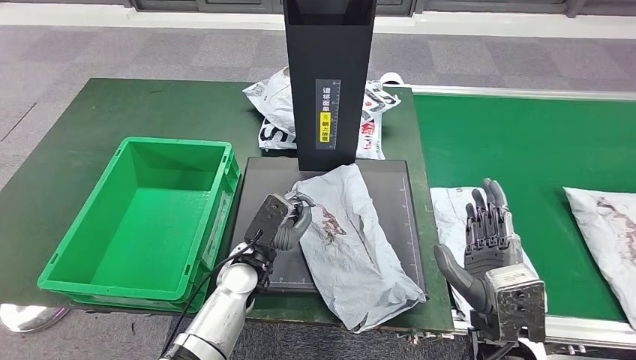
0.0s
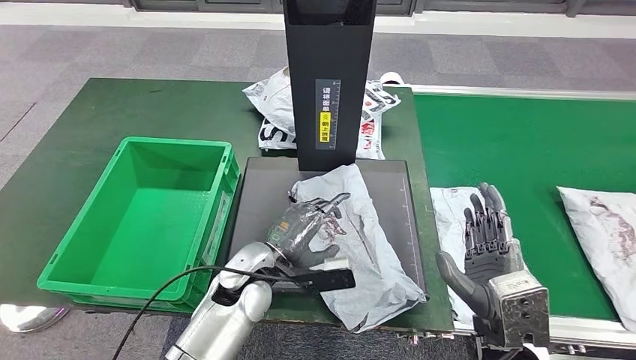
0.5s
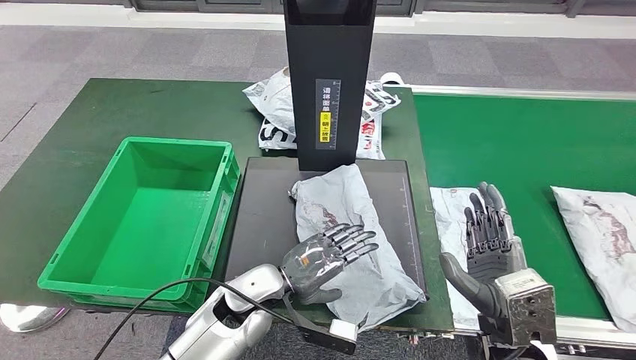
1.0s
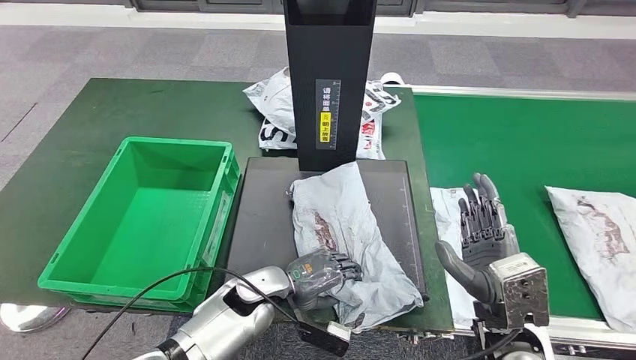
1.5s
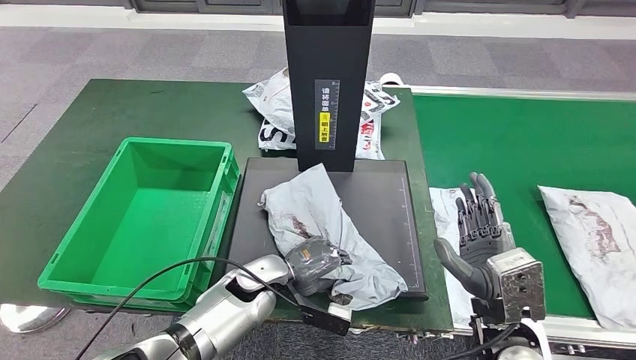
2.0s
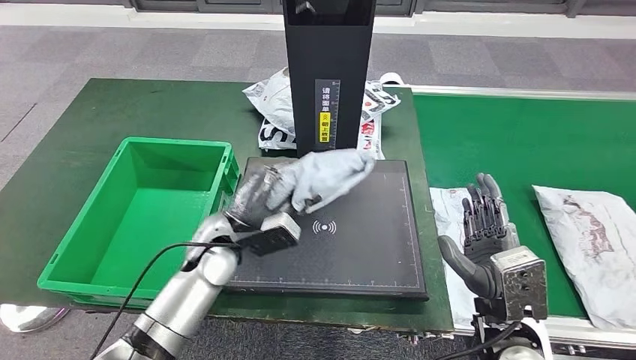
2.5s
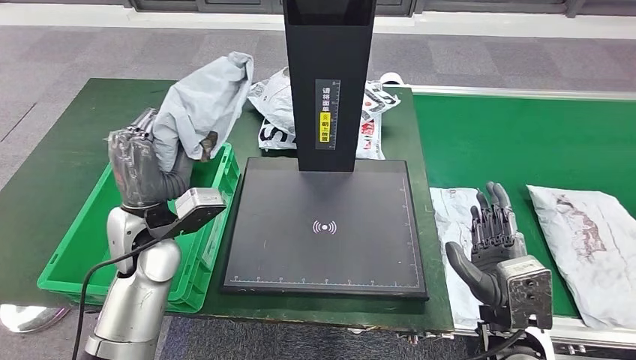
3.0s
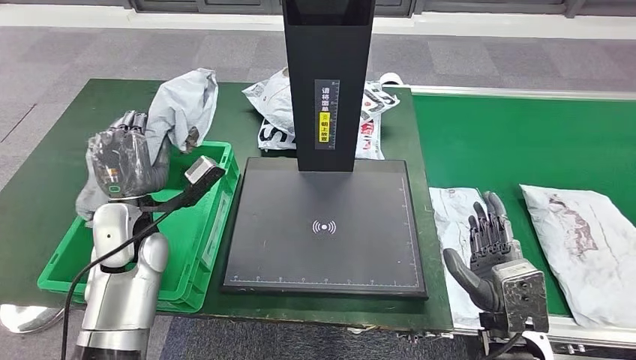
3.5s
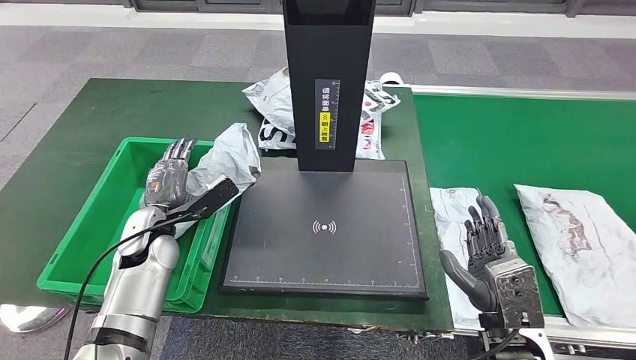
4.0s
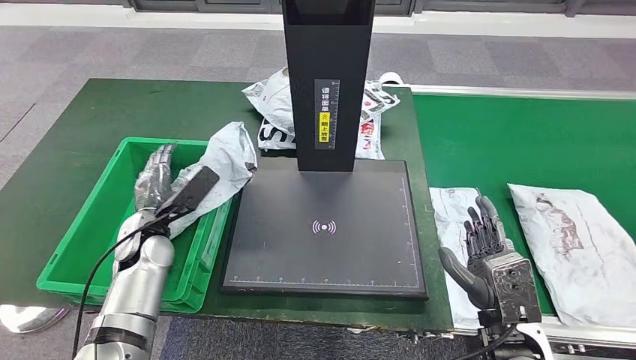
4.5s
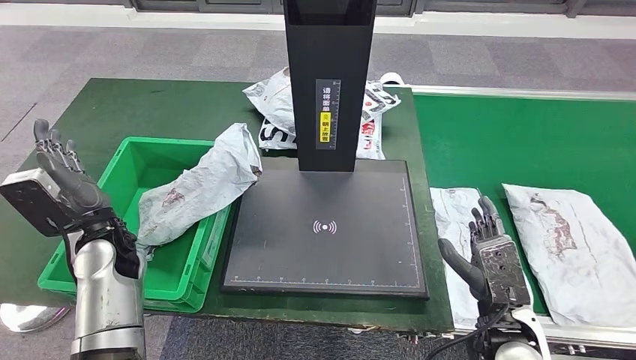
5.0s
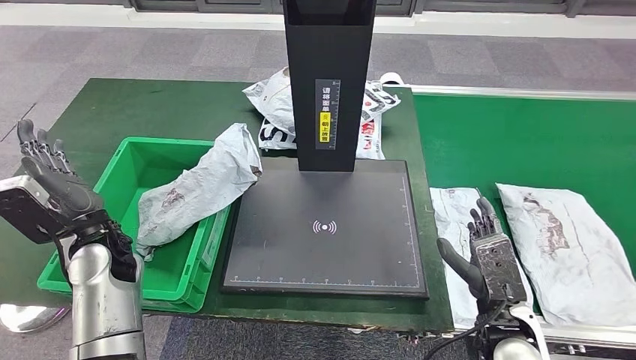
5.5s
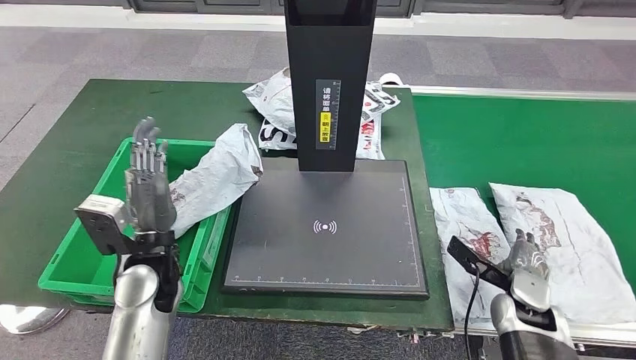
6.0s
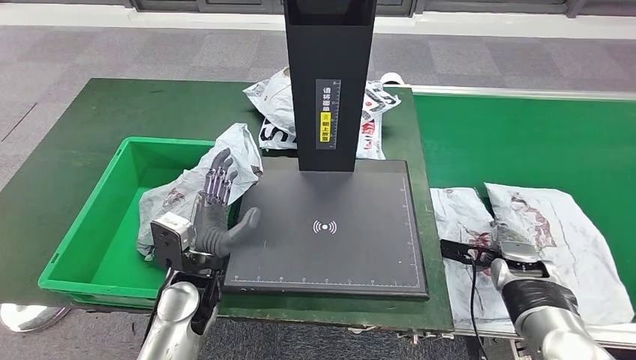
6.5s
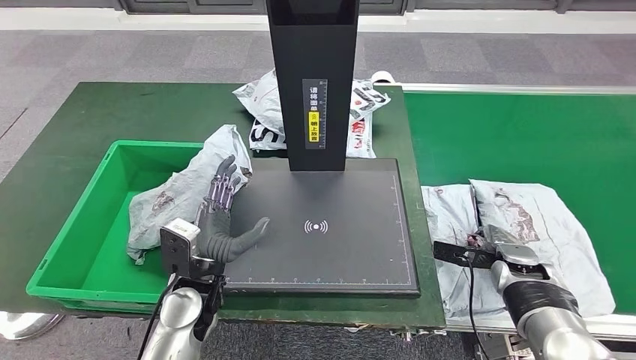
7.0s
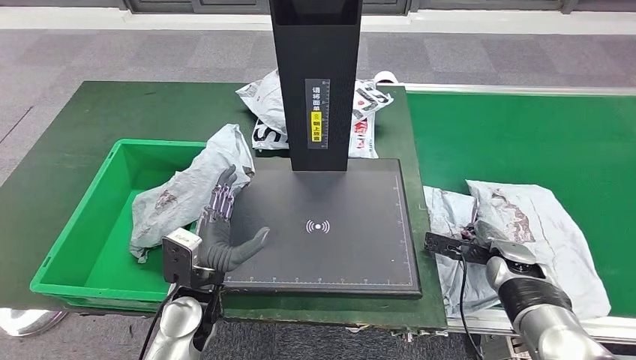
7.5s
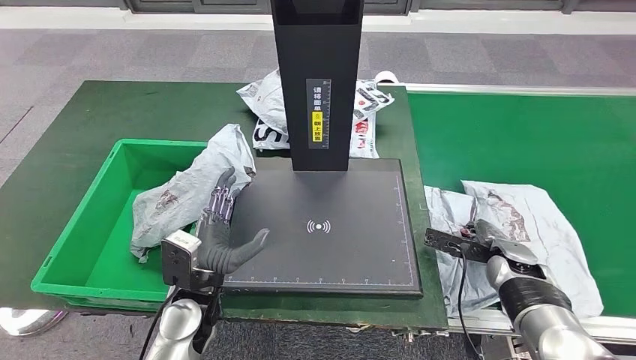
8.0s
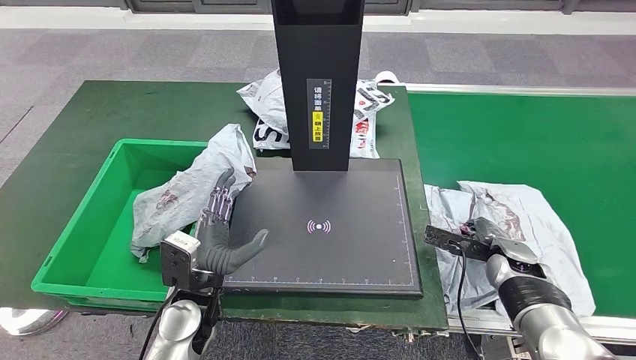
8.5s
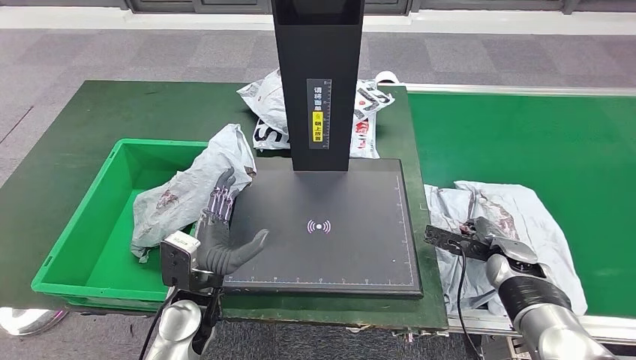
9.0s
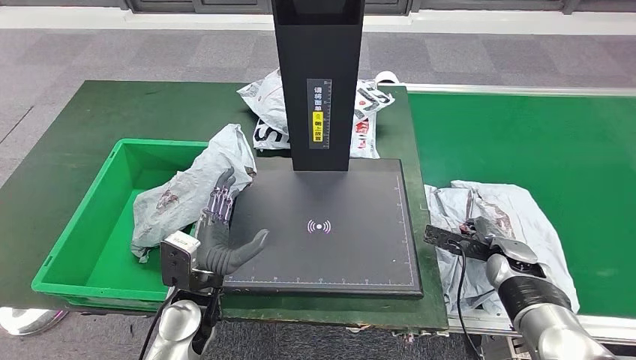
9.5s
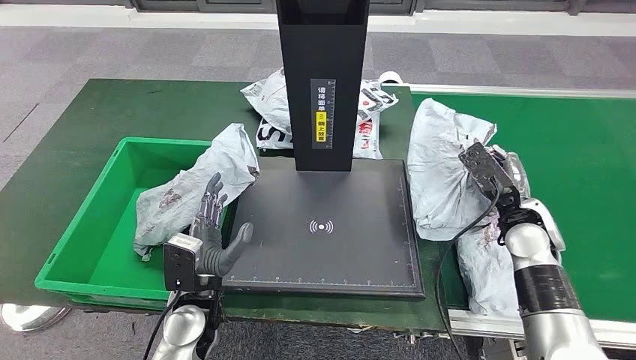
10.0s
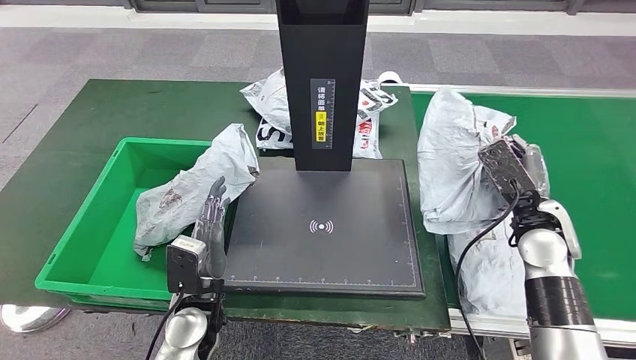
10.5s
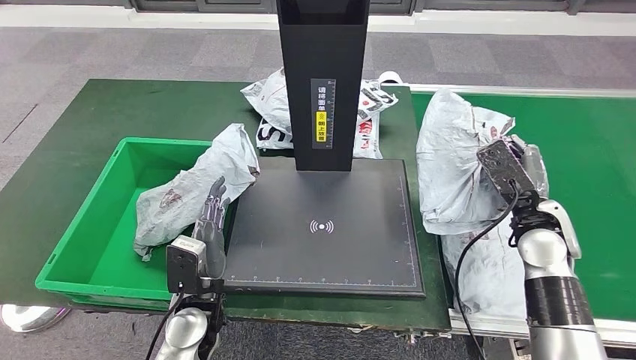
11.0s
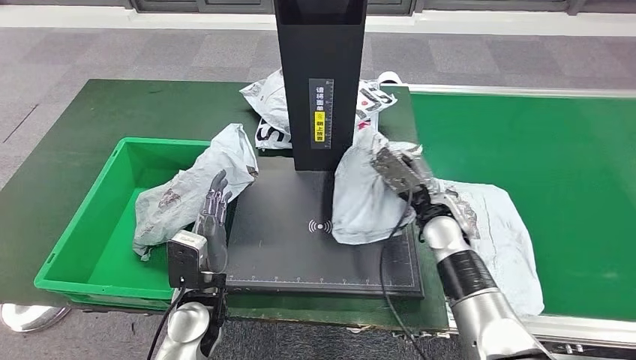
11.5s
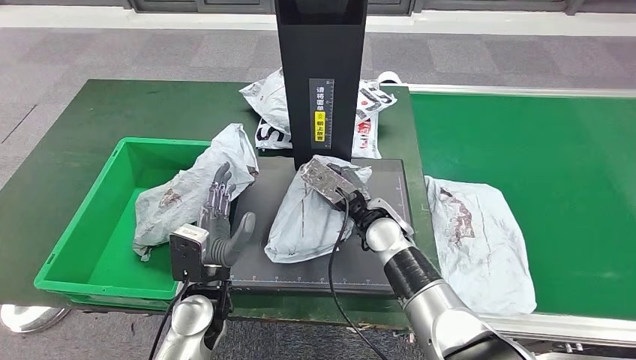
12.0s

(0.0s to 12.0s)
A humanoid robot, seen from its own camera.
Step, 0.0s - 2.5s: Pick up the parcel from the inbound machine.
Step, 3.0s - 4.0s: Put the parcel inside the courier box.
Step, 4.5s - 10.0s: Pick up the parcel from the conveyor belt.
4.0s - 6.0s: The right hand shifts about 15 cm forward, to the right and downward. Meanwhile the left hand heads backward, covering approximately 5 cm.

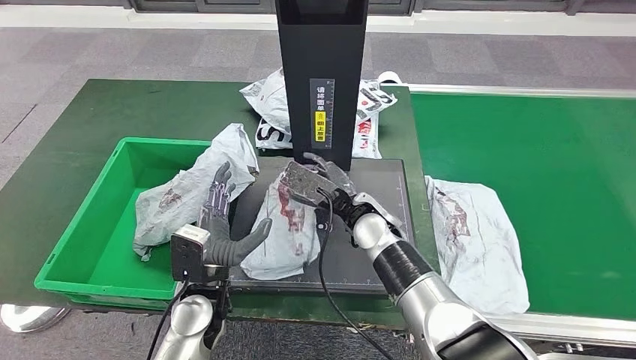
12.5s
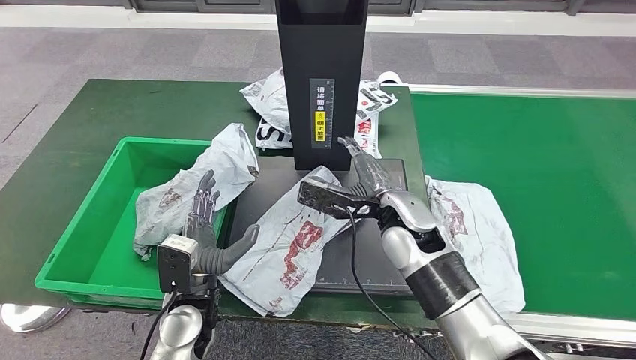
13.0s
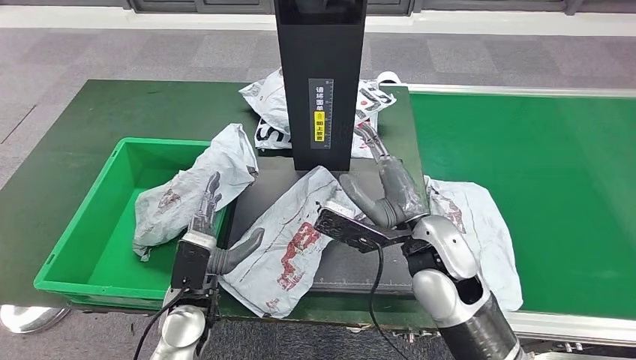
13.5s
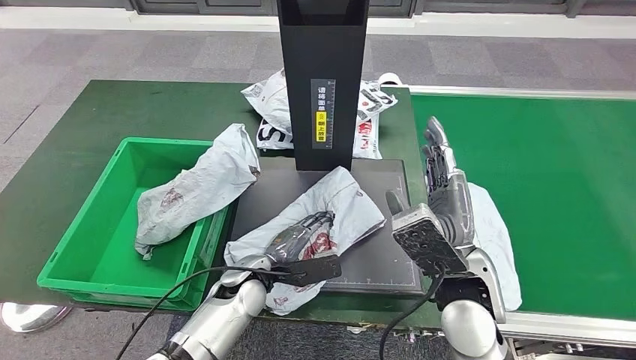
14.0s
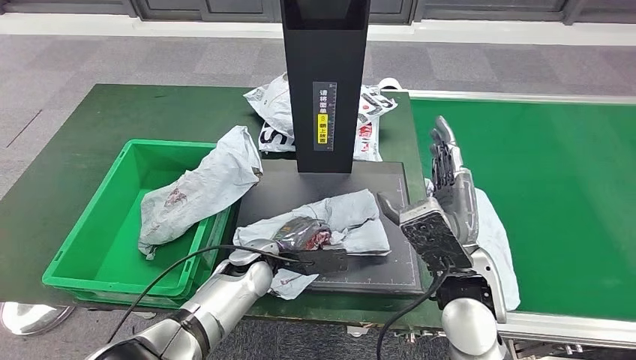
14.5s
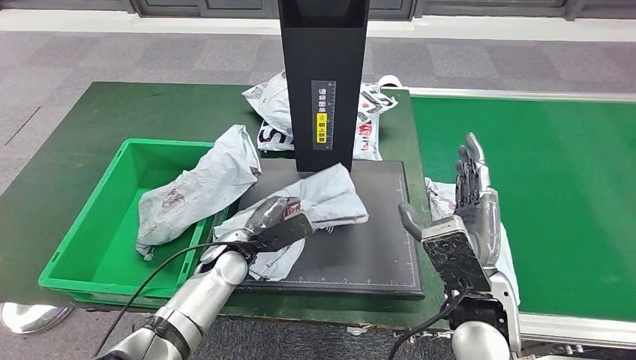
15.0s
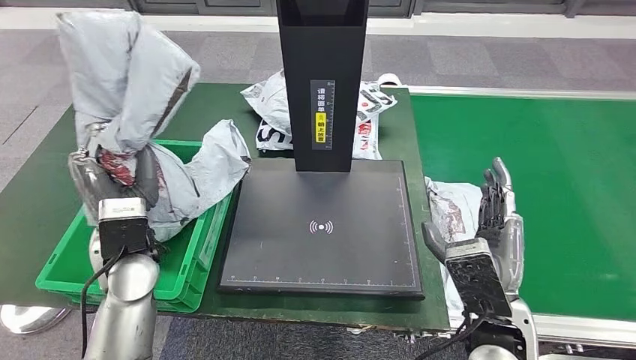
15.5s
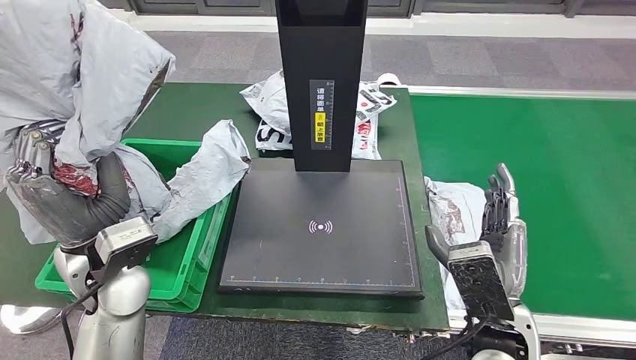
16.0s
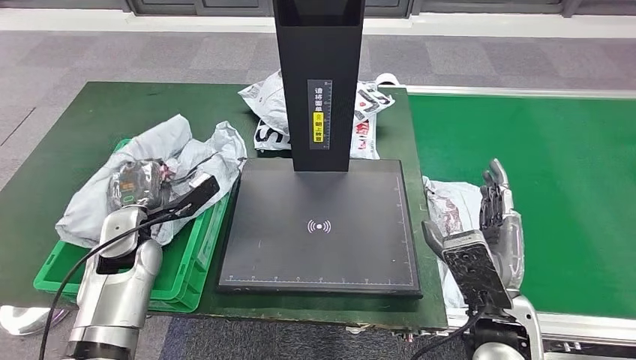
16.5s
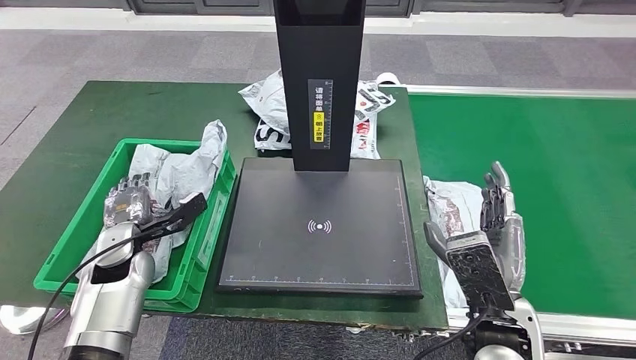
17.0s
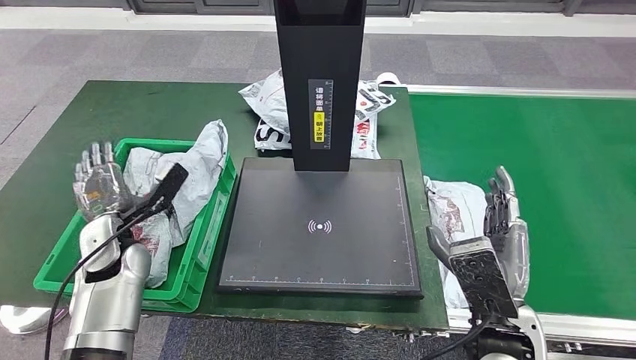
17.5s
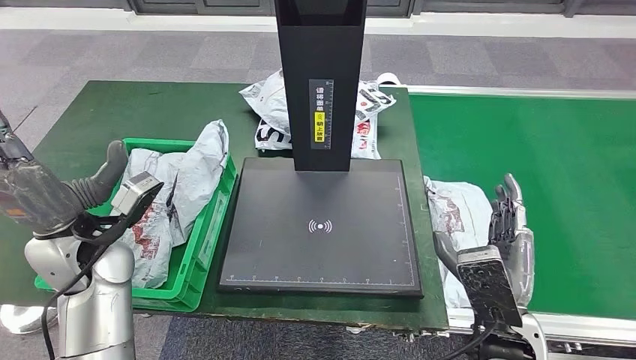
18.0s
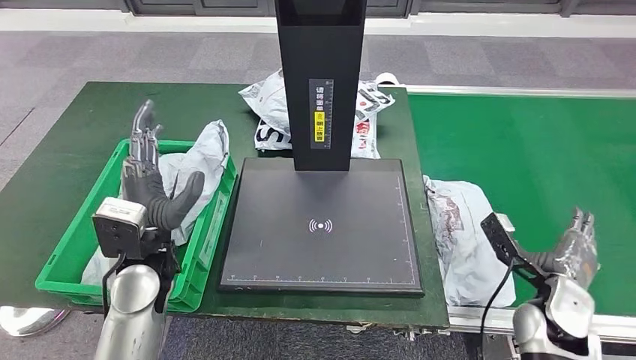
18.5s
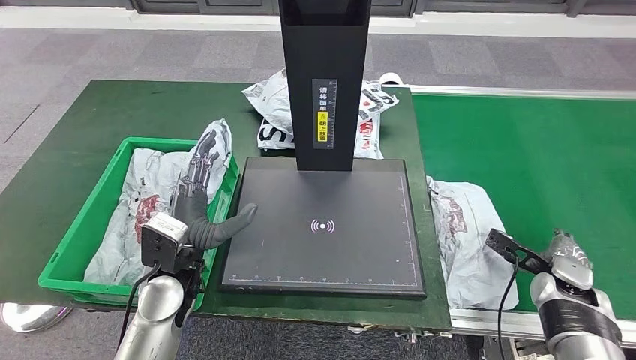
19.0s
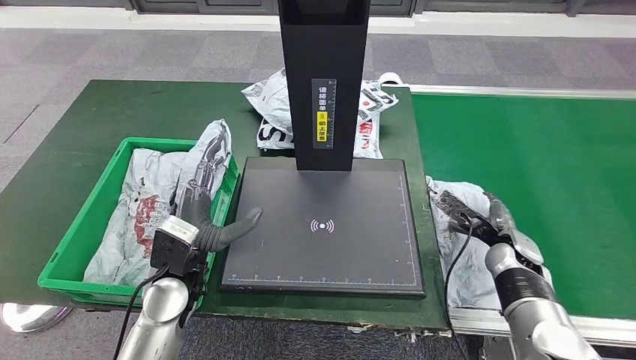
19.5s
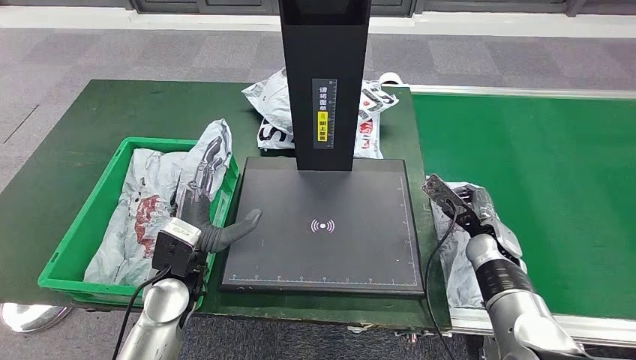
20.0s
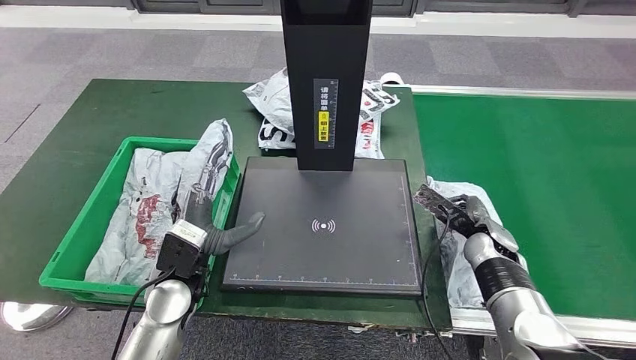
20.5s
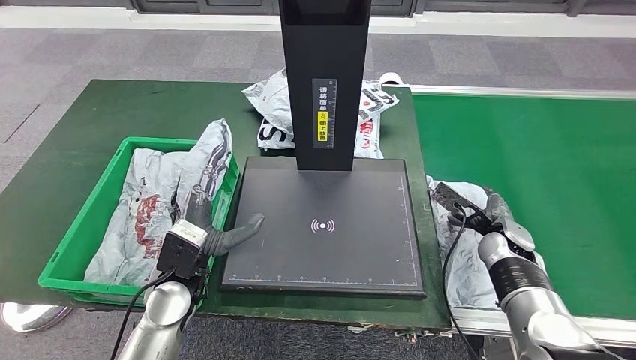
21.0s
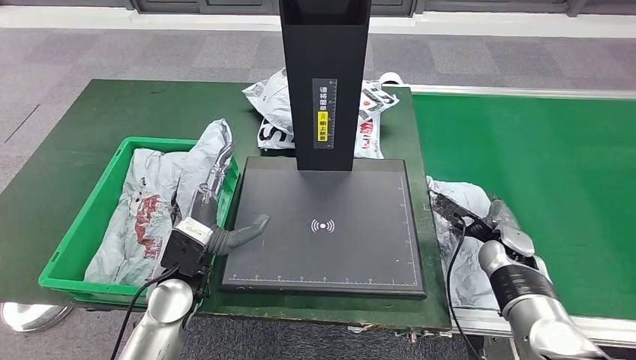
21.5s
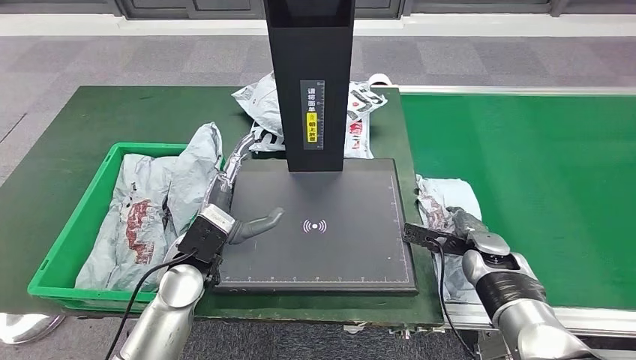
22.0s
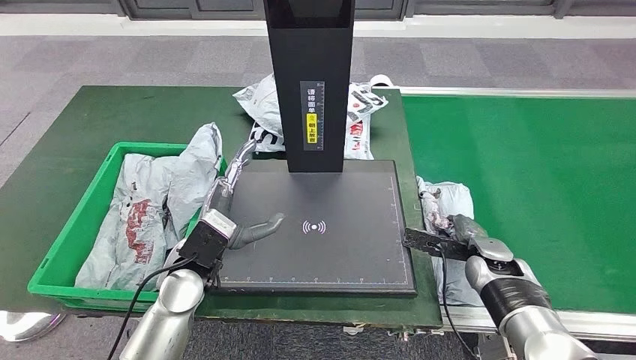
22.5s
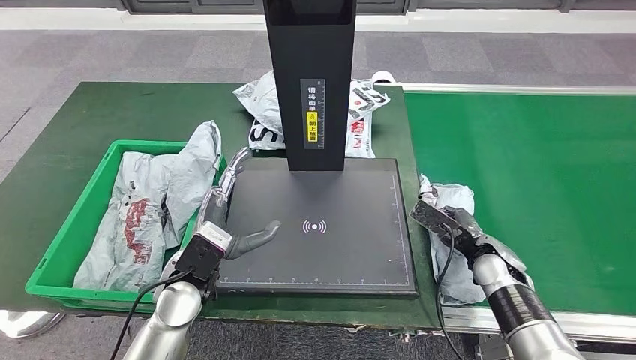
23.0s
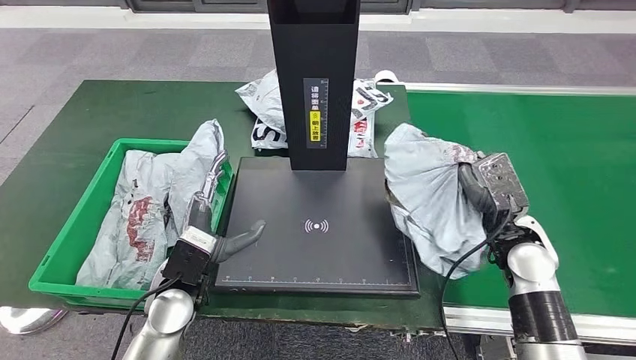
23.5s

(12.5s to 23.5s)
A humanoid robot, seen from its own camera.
Step, 13.5s - 15.0s: Pick up the parcel from the inbound machine.
Step, 16.0s - 17.5s: Place the parcel into the delivery box.
